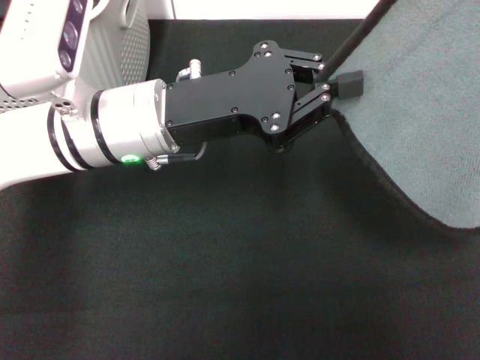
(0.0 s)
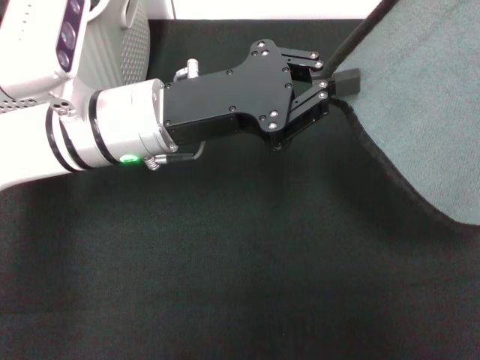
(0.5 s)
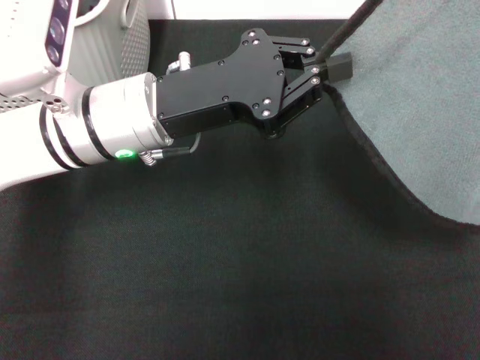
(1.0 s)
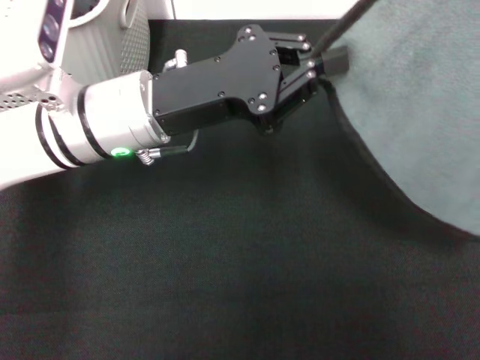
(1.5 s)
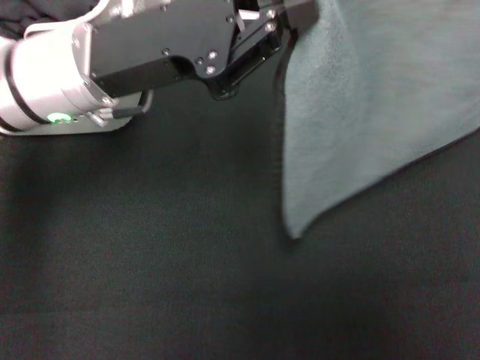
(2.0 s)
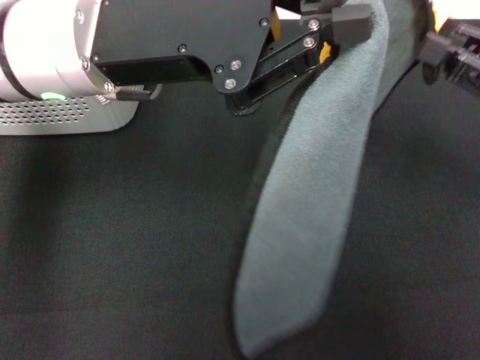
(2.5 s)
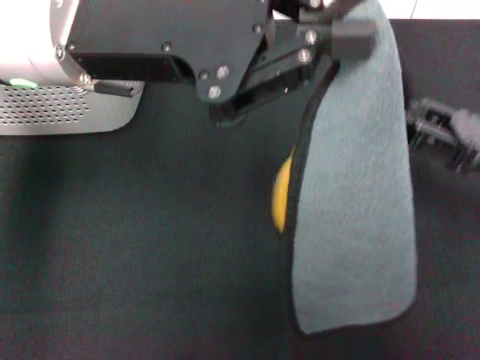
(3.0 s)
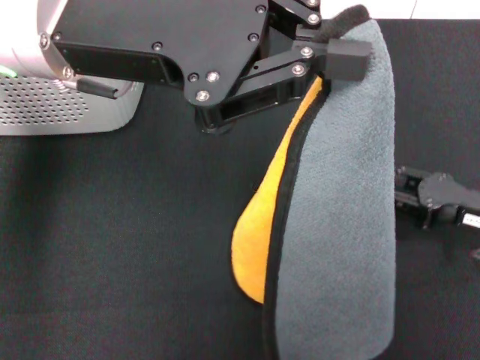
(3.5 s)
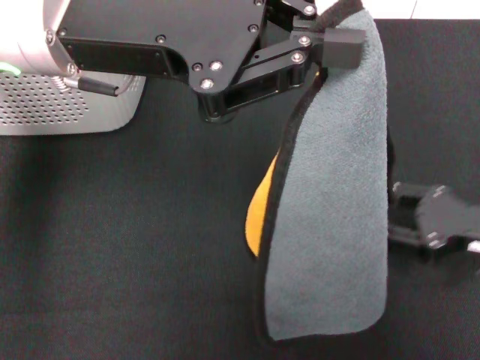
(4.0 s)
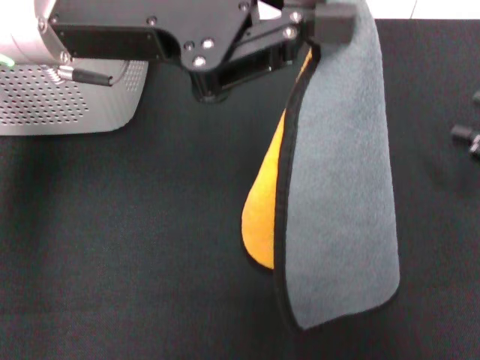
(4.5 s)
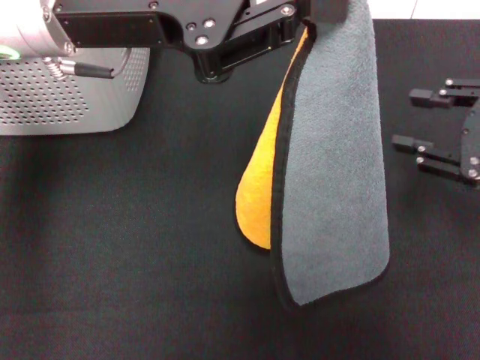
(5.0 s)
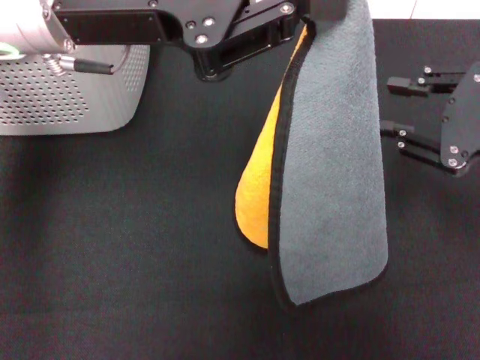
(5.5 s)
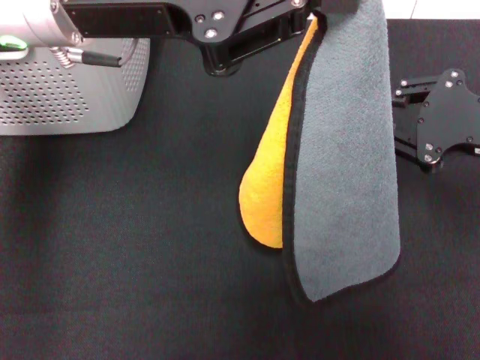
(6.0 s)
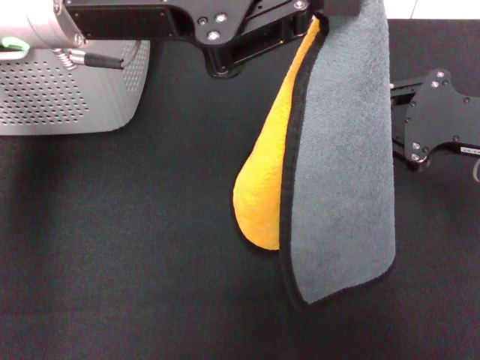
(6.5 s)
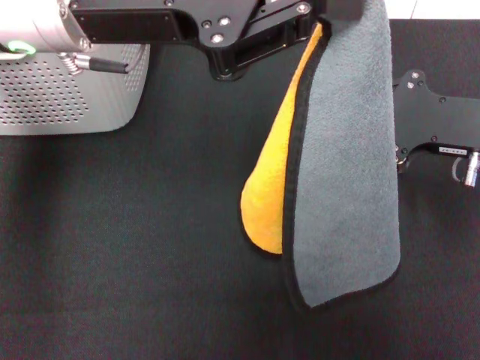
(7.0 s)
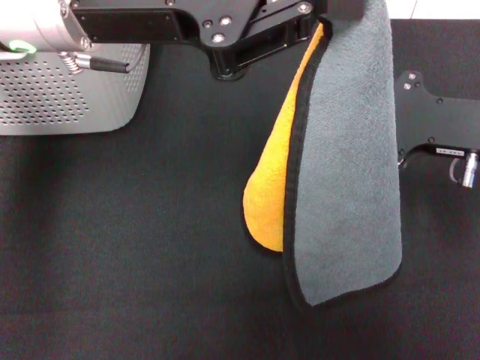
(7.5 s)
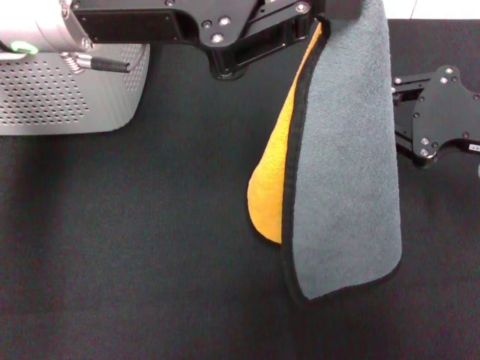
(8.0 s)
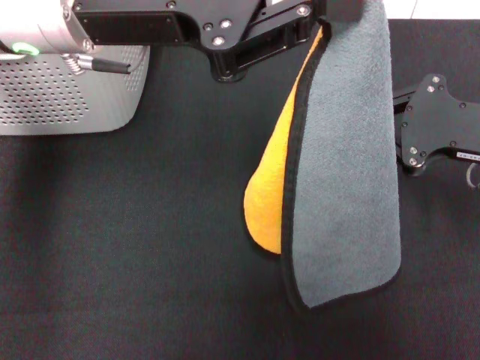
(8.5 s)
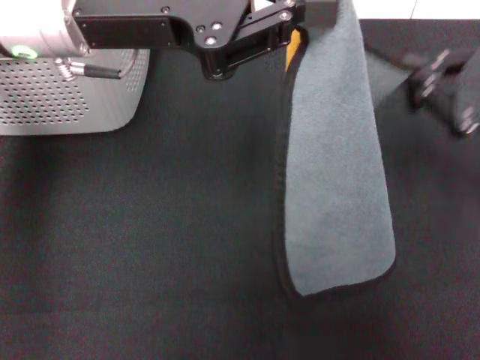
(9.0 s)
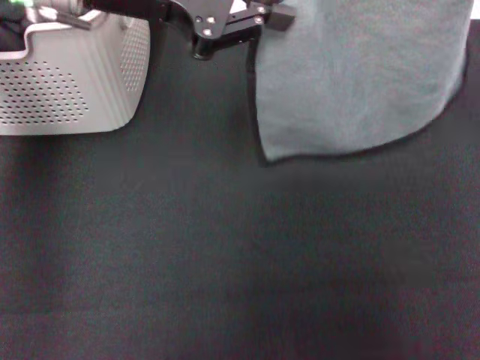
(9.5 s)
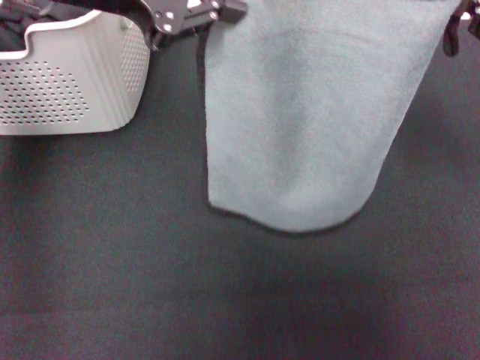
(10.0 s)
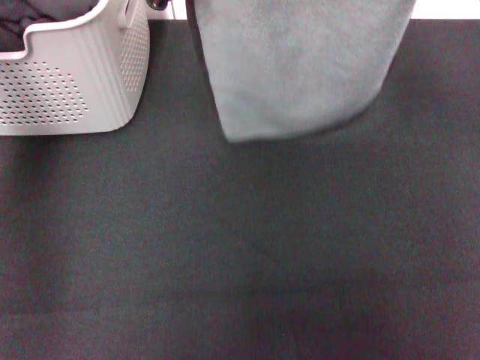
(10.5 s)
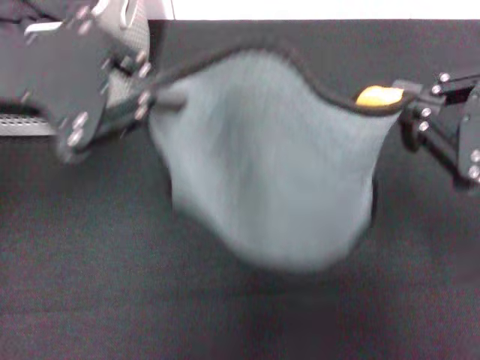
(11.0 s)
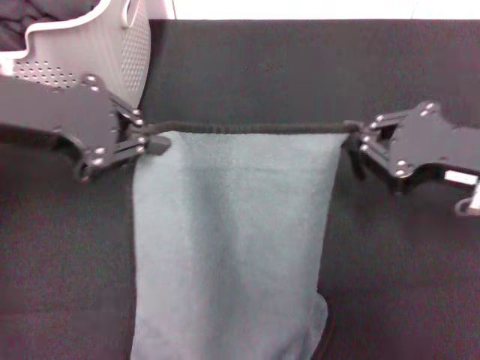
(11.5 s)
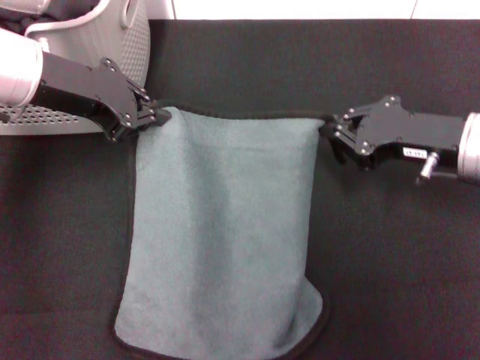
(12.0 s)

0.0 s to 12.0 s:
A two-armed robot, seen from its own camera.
Task of the whole recording: pick up the towel from the storage box and lay it flat on the black tablecloth.
0.0 to 2.0 s: The right gripper moves downward, roughly 15 cm; the left gripper shifts by approximately 5 cm.
2.0 to 4.0 s: The left gripper shifts roughly 5 cm upward. The right gripper goes approximately 20 cm downward and to the left, and opens its fingers.
4.0 to 6.0 s: The right gripper goes approximately 10 cm upward.
6.0 to 8.0 s: The grippers make only small movements.
8.0 to 10.0 s: The left gripper ends up approximately 5 cm from where it was, while the right gripper heads upward, covering approximately 5 cm.
10.0 to 12.0 s: The left gripper moves downward, some 10 cm, and travels backward and back again, some 10 cm each way; the right gripper goes forward and backward, about 15 cm each way, reversing 2 times.

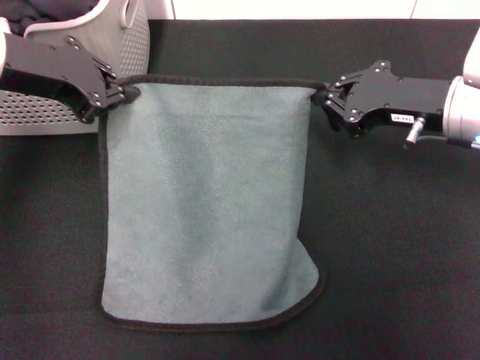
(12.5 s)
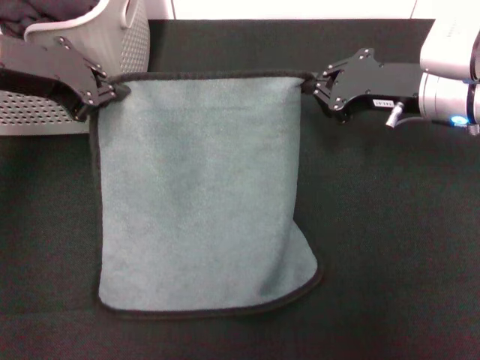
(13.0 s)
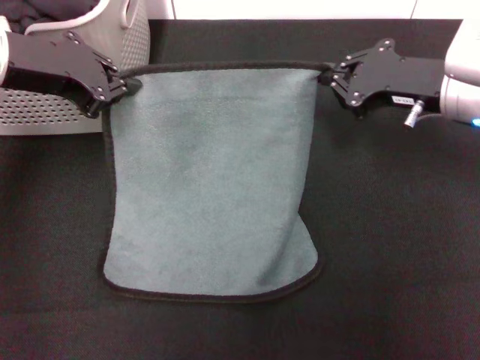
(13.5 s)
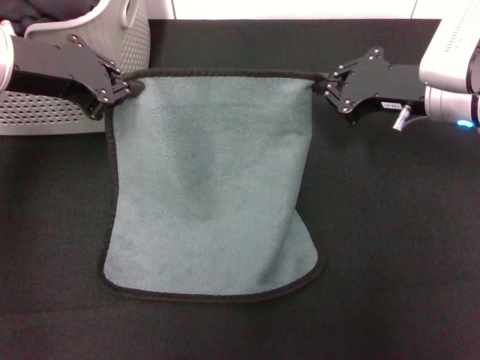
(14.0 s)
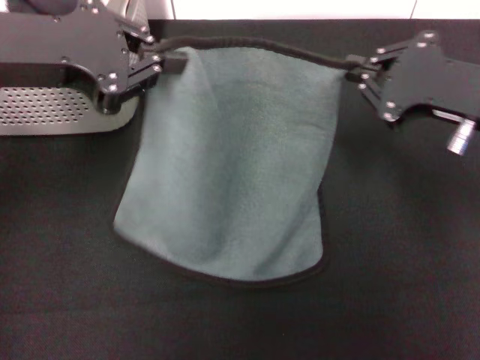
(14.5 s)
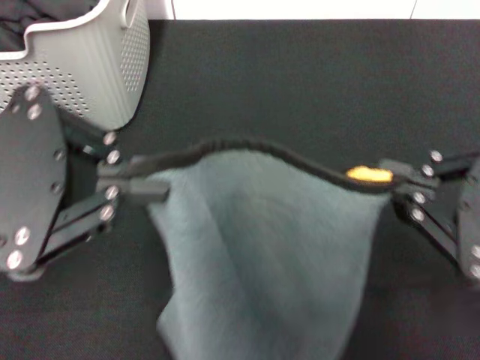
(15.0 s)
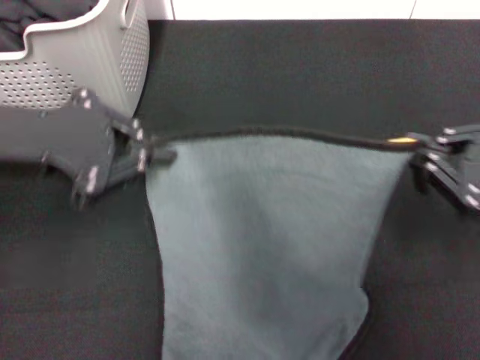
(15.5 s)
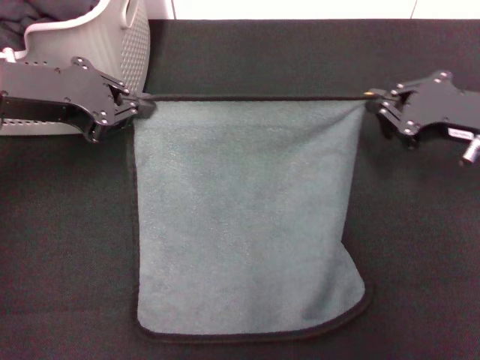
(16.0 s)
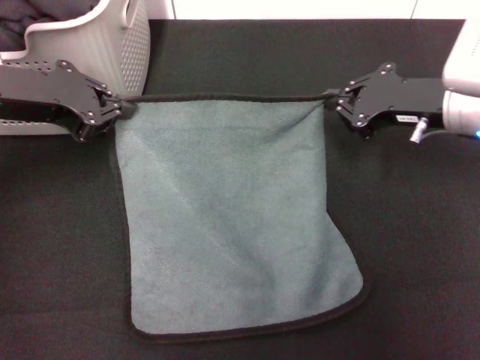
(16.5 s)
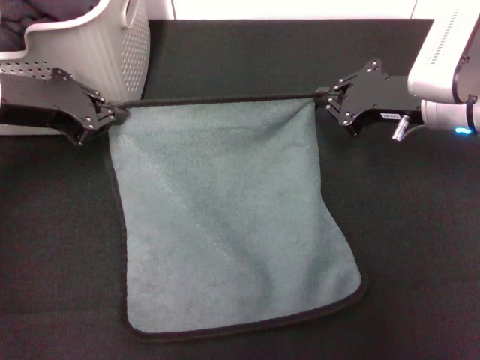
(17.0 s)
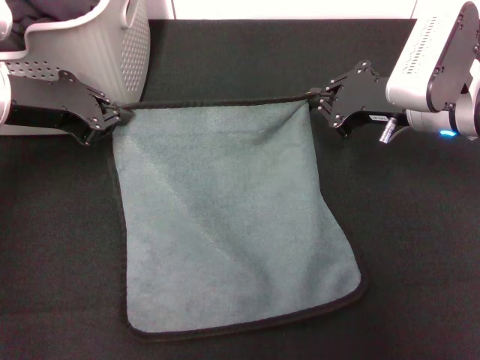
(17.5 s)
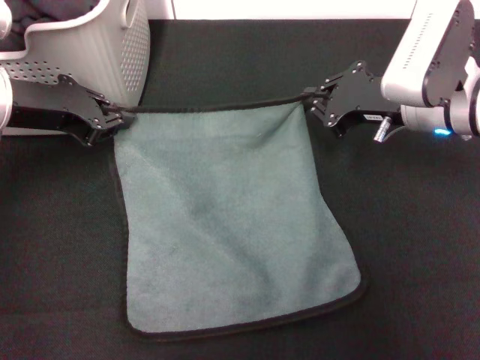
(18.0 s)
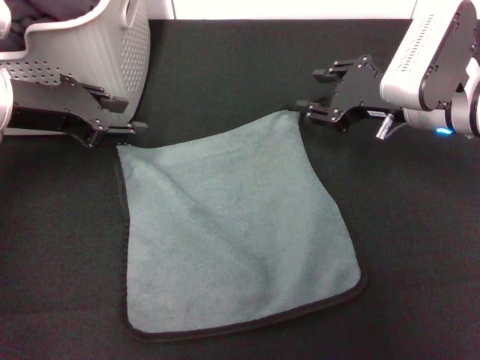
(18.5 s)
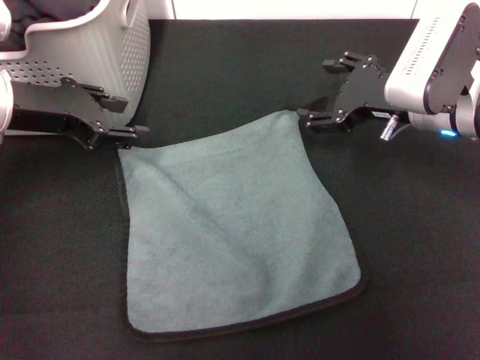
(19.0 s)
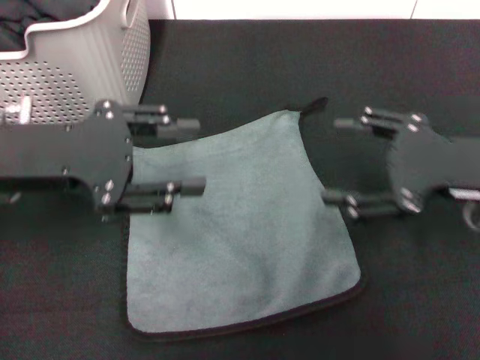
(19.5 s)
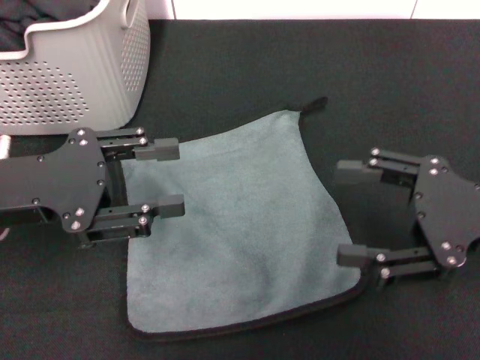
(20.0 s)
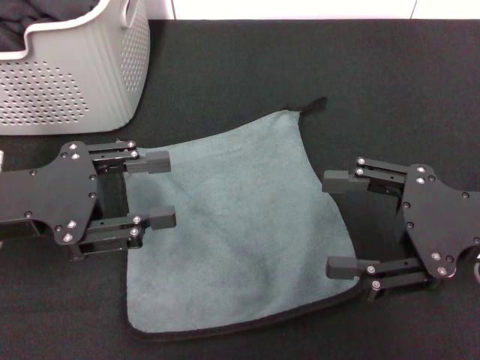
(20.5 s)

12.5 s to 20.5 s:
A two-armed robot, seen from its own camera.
Task of the whole recording: pick up the towel from the storage box and lay it flat on the black tablecloth.
Step, 12.5 to 18.0 s: Spread the towel flat with the right gripper.
12.5 to 14.5 s: The left gripper is displaced backward by some 5 cm; the right gripper is displaced backward and upward by some 10 cm.
14.5 to 16.5 s: The right gripper is displaced forward and downward by about 10 cm. Meanwhile the left gripper travels downward by about 5 cm, and reaches some 10 cm backward, then returns.
16.5 to 18.5 s: The right gripper opens its fingers. Meanwhile the left gripper opens.
18.5 to 20.5 s: The right gripper shifts about 15 cm backward and to the right, and opens. Meanwhile the left gripper goes about 10 cm backward, and opens up.
